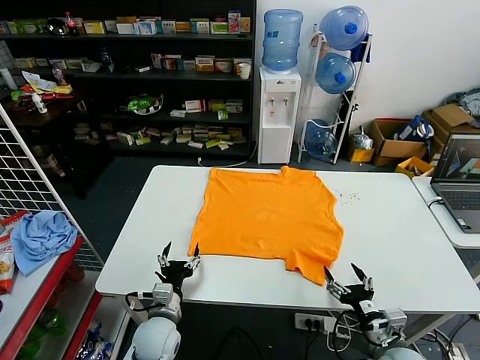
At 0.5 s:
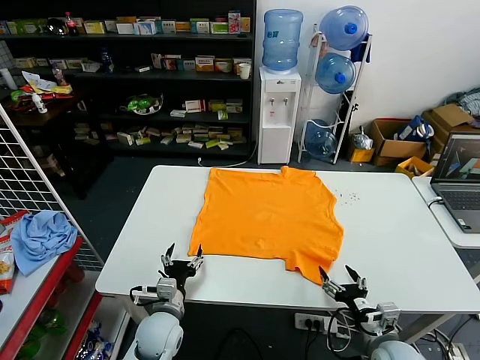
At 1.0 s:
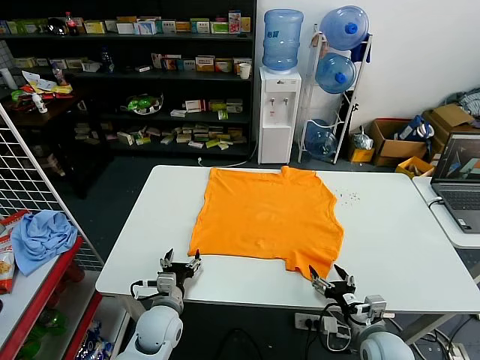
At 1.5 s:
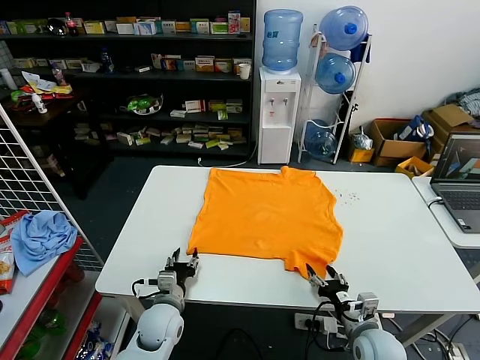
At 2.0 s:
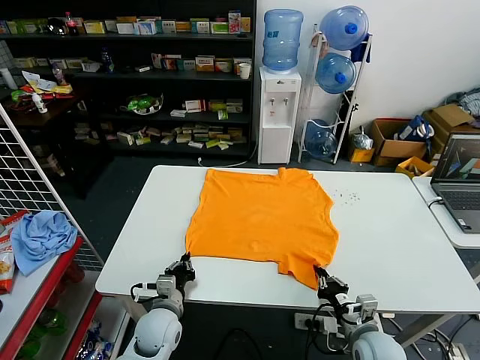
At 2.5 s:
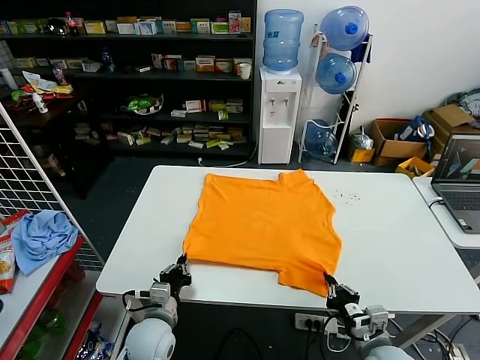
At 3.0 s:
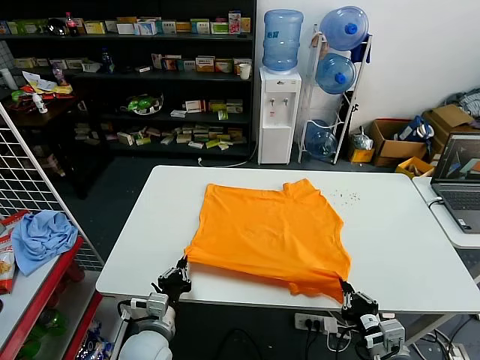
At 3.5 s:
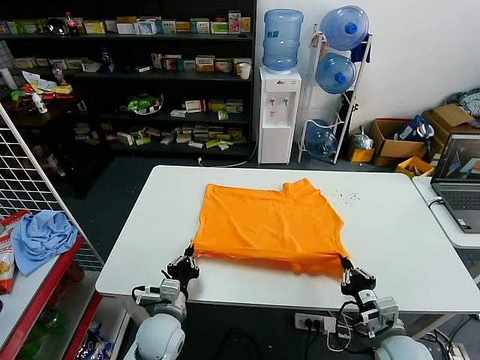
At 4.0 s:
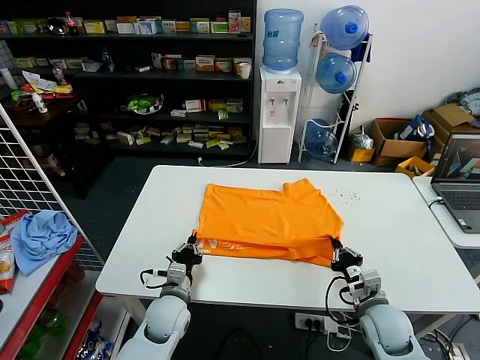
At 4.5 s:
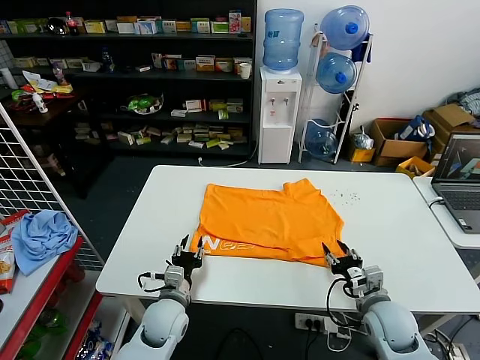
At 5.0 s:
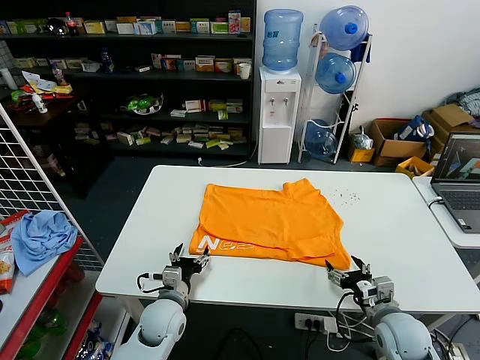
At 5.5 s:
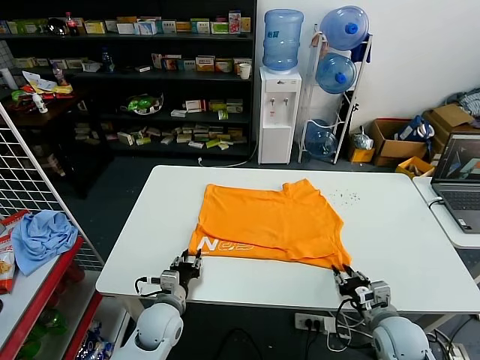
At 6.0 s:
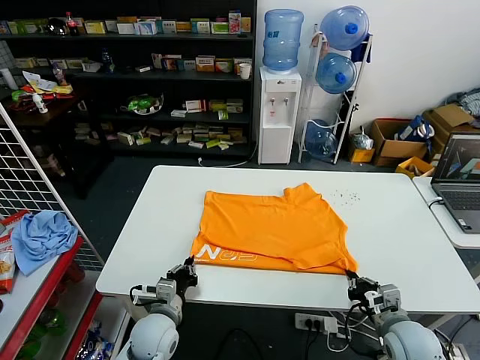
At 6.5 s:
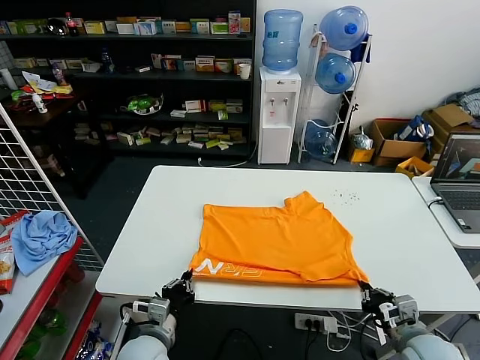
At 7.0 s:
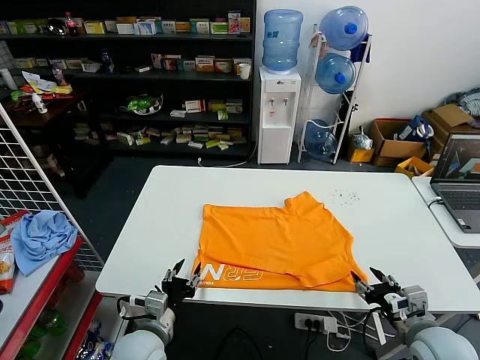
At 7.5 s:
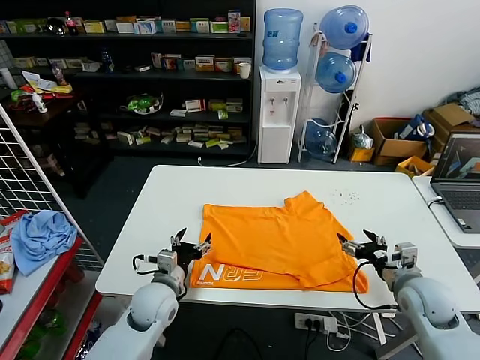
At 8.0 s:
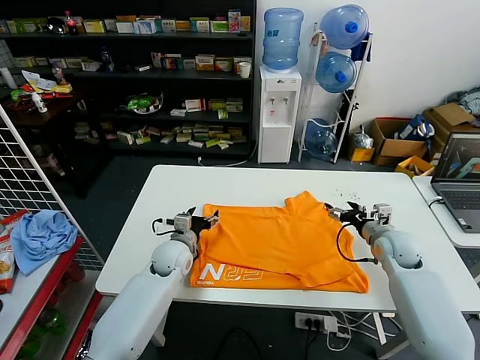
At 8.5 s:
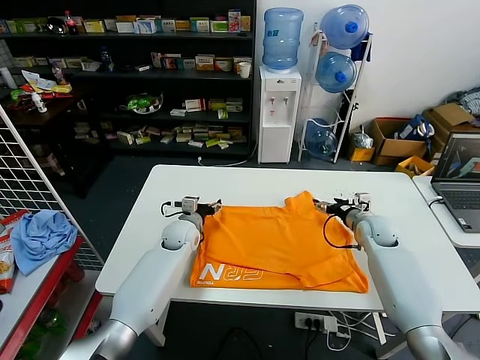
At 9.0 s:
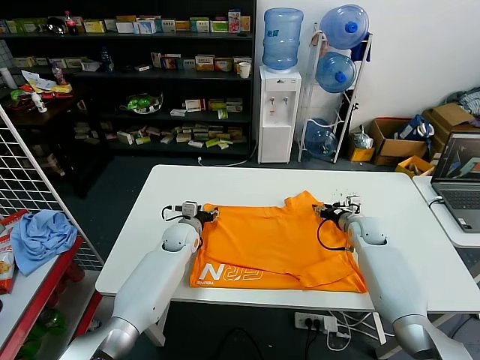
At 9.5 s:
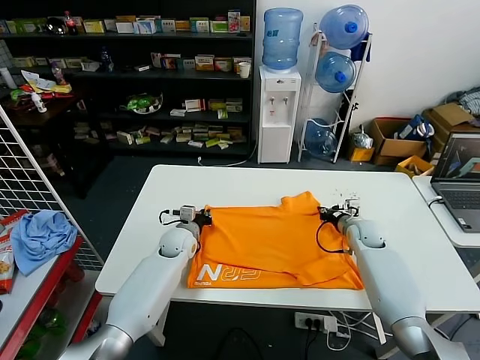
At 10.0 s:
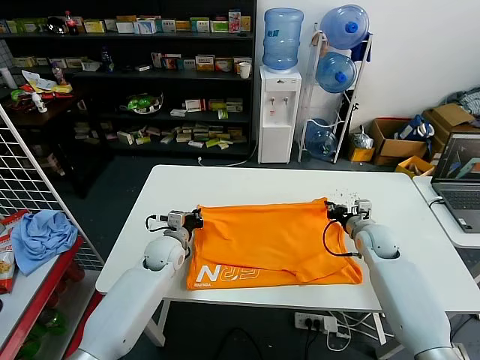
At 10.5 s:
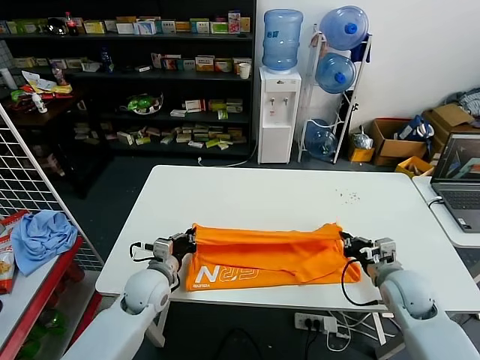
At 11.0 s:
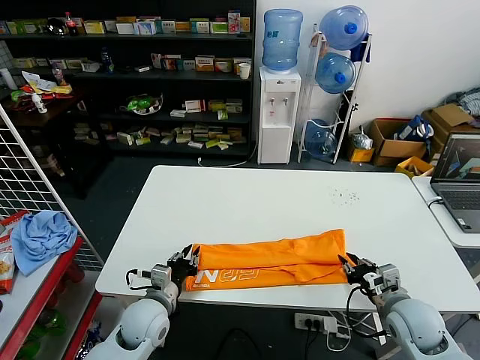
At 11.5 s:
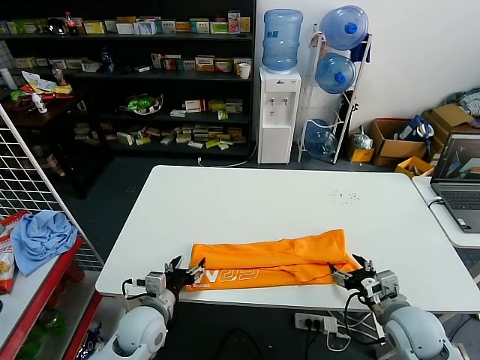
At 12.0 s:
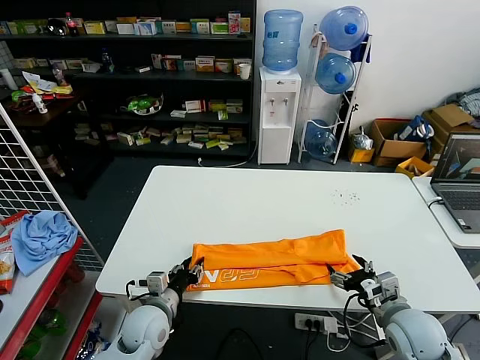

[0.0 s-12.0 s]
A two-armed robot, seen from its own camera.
Task of the whole recording: fold and organize the clothes.
Step, 0.0 to 2.0 s: use both grippers simultaneously to clamp the lower edge of the clothing fabric.
Step, 2.5 to 4.0 s: use both grippers to drag the lower edge of the fabric forward and fold it over the upper edge.
Step, 4.5 to 6.5 s: Drag the clothes downward with both gripper.
Step, 7.0 to 9.5 s: use both grippers simultaneously to clamp the upper edge of the clothing fabric.
Step, 10.0 to 11.0 s: use both grippers to drag the upper edge of the fabric backward and fold it over the lower edge.
2.0 to 4.0 s: The left gripper goes backward and returns, roughly 5 cm each way. The right gripper moves forward, some 5 cm.
4.0 to 6.0 s: The right gripper shifts about 5 cm backward, and opens, then closes once more. Meanwhile the left gripper opens, then closes once more.
6.0 to 8.0 s: The two grippers go approximately 20 cm forward. The right gripper opens. The left gripper opens up.
8.0 to 10.0 s: The right gripper closes, while the left gripper moves roughly 10 cm forward and comes back, and closes up.
10.0 to 12.0 s: The two grippers go roughly 20 cm backward. The right gripper opens up. Meanwhile the left gripper opens its fingers.

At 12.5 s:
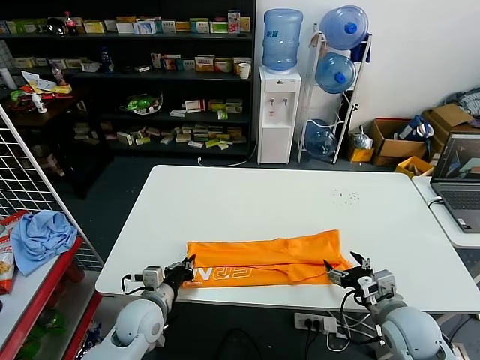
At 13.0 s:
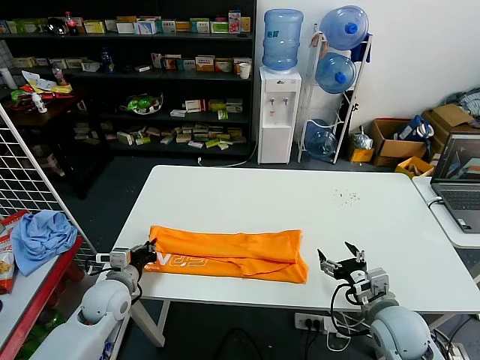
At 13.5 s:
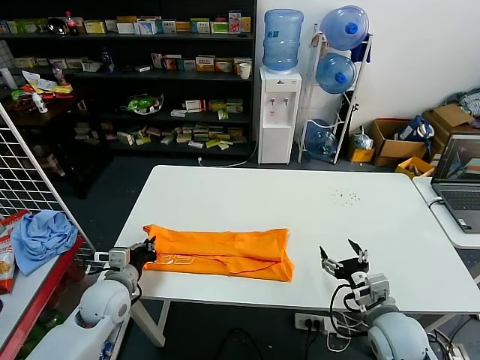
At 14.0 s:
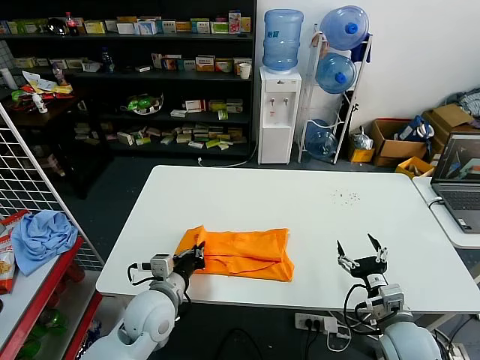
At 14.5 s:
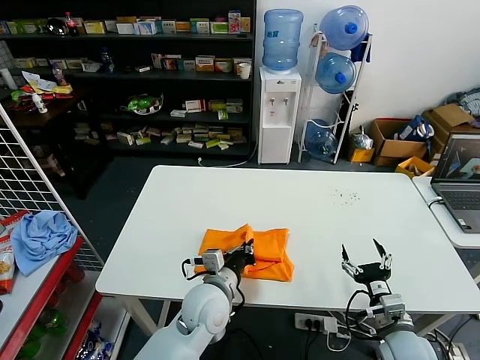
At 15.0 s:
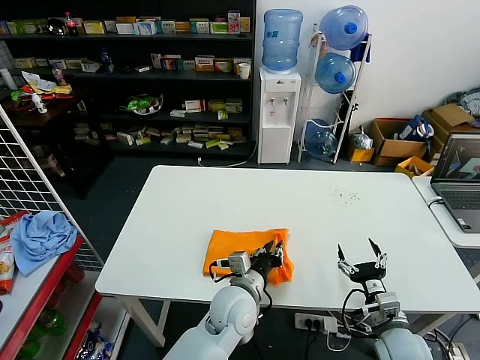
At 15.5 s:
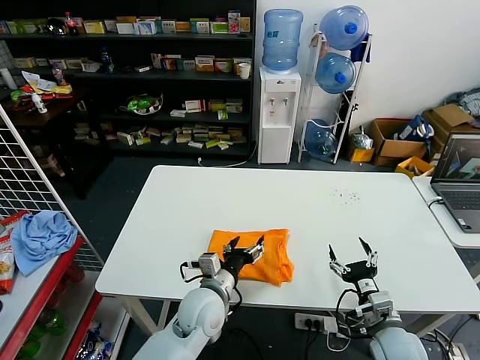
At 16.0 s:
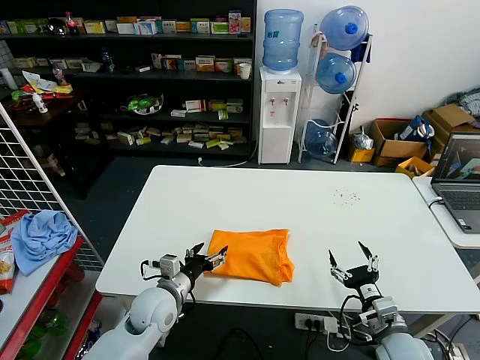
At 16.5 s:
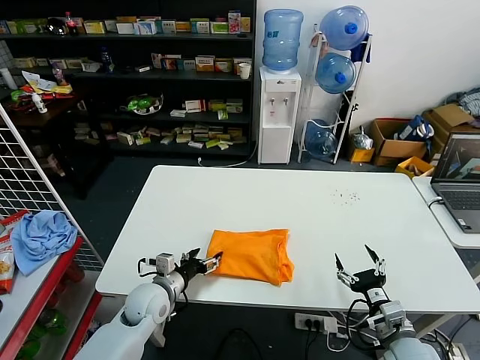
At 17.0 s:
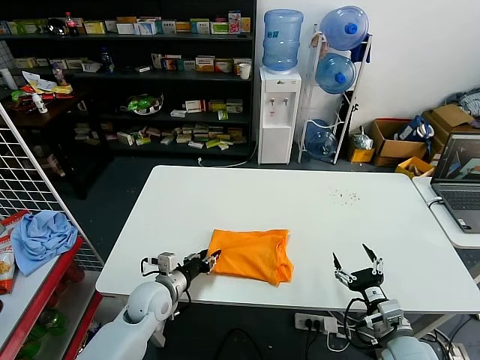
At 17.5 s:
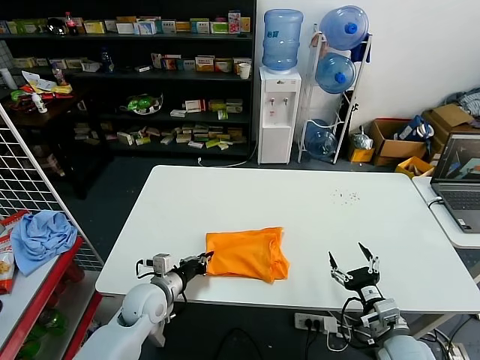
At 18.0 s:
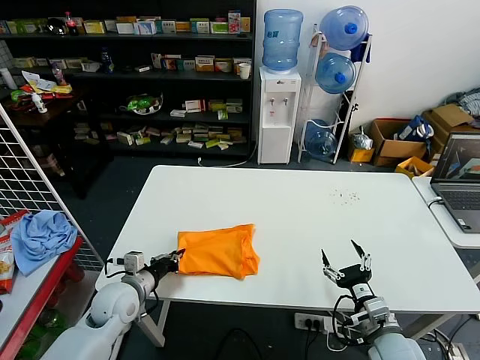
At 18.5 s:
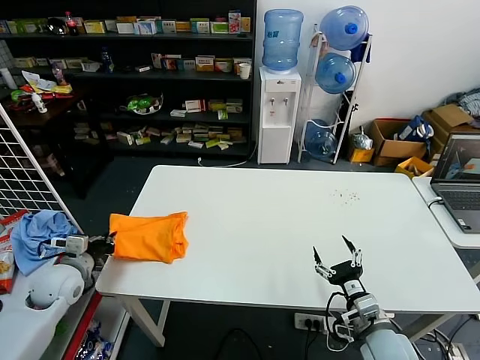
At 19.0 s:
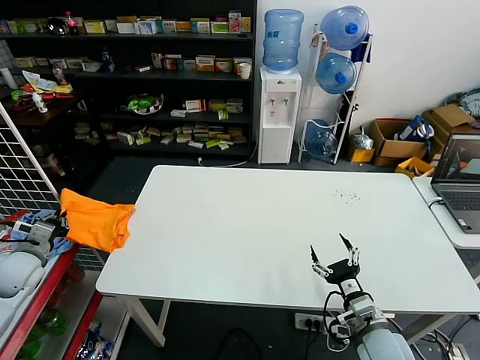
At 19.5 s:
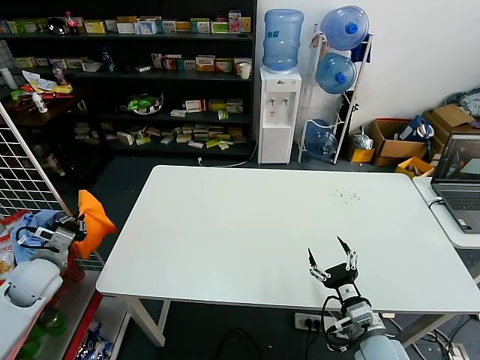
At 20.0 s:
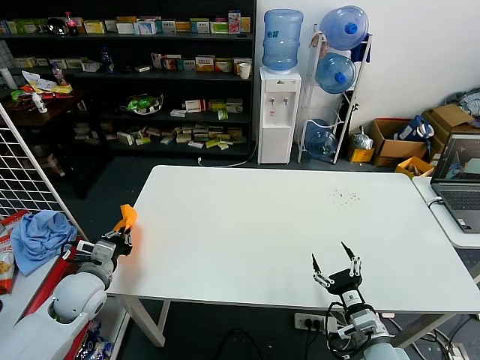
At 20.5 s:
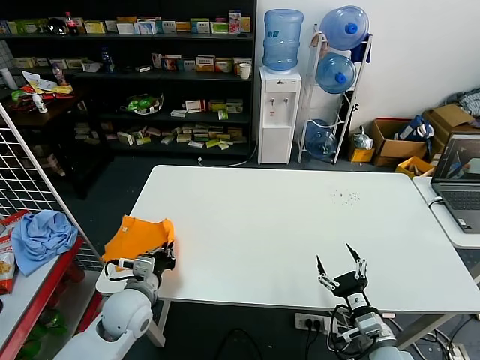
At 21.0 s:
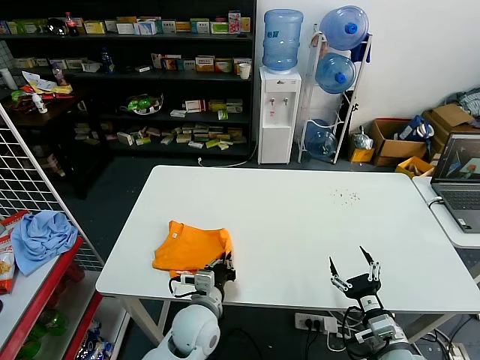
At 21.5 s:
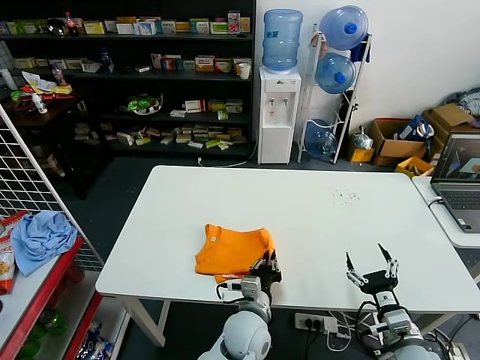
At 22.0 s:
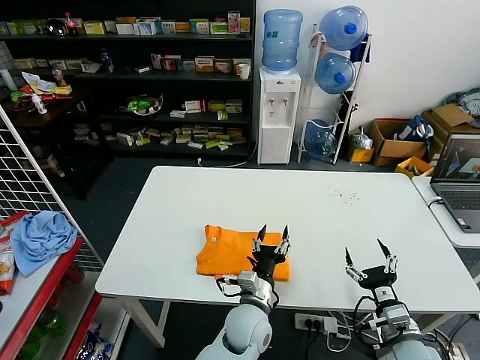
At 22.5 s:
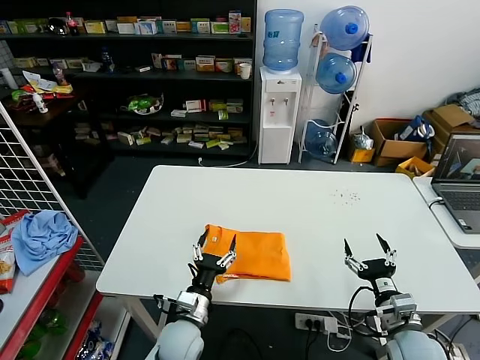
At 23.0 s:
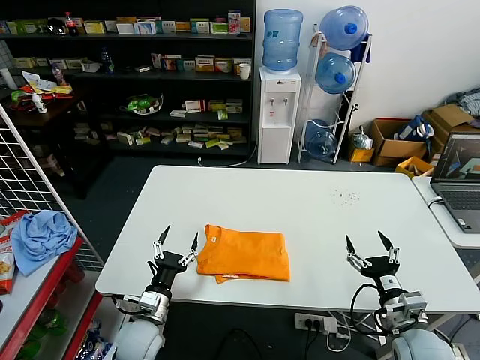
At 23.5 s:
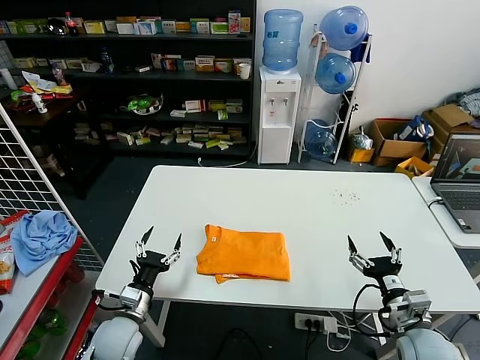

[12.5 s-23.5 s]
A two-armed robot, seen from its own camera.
Task of the whole recording: fold and organize the clothes.
Step, 13.0 to 15.0 s: use the left gripper to drag the left edge of the fabric to the left and folds it over the right edge.
Step, 15.5 to 21.5 s: Flip the folded clothes over with left gripper.
12.5 to 14.5 s: The right gripper shifts by roughly 5 cm; the left gripper moves to the right and upward, some 15 cm.
14.5 to 16.0 s: The left gripper is displaced to the left by some 10 cm, and opens.
16.0 to 18.0 s: The left gripper heads to the left, covering approximately 10 cm, and closes up.
18.0 to 20.0 s: The left gripper travels to the left and upward by roughly 10 cm.
20.0 to 21.5 s: The left gripper travels to the right by some 35 cm. Meanwhile the right gripper travels to the right by approximately 5 cm.
21.5 to 23.5 s: The left gripper shifts approximately 25 cm to the left, and opens up.

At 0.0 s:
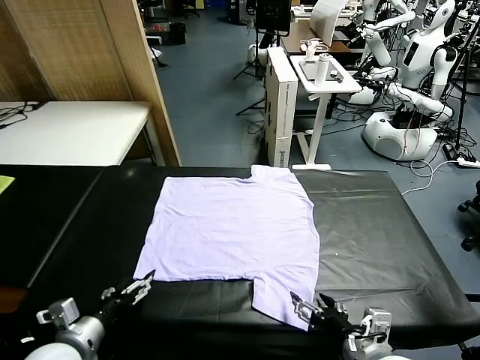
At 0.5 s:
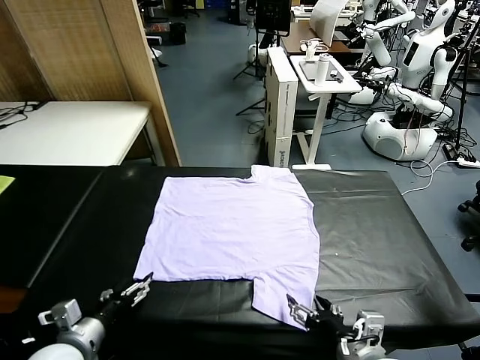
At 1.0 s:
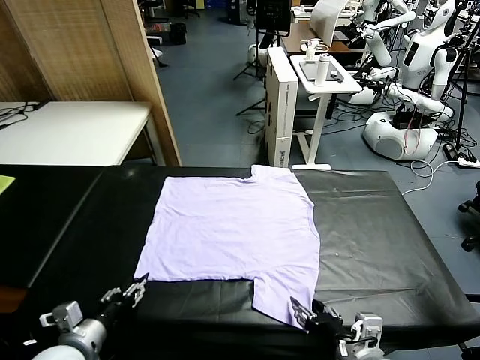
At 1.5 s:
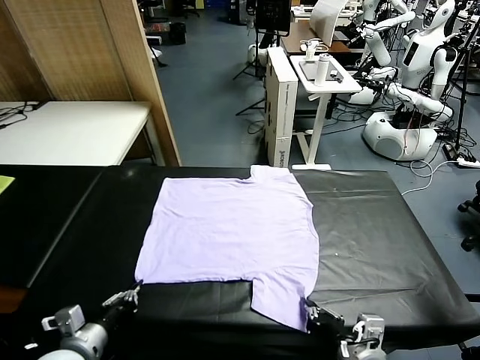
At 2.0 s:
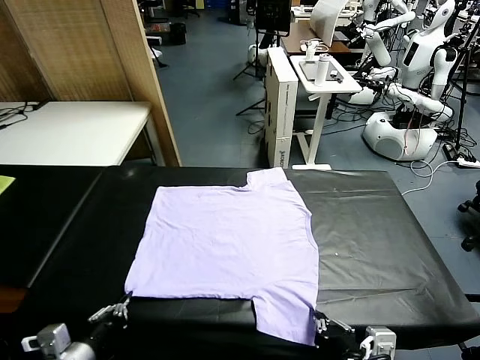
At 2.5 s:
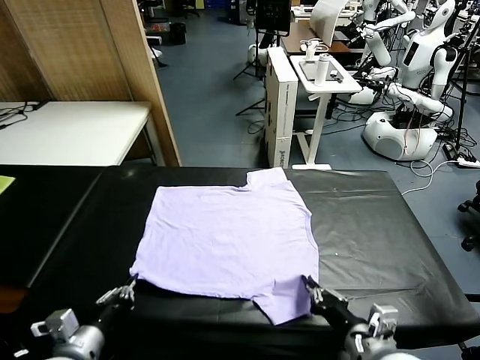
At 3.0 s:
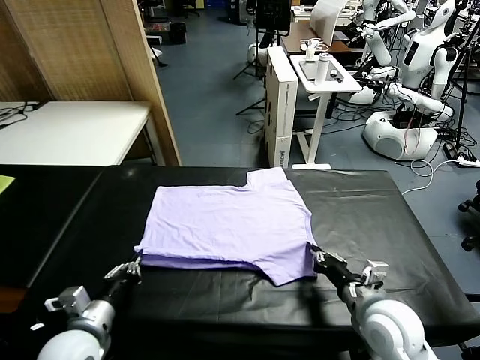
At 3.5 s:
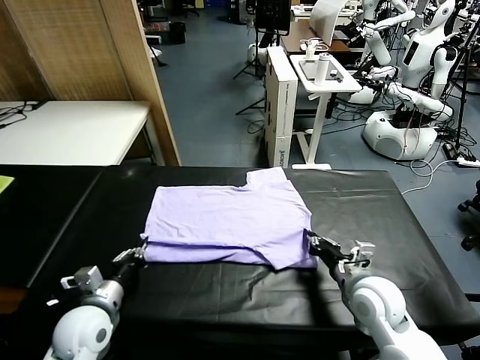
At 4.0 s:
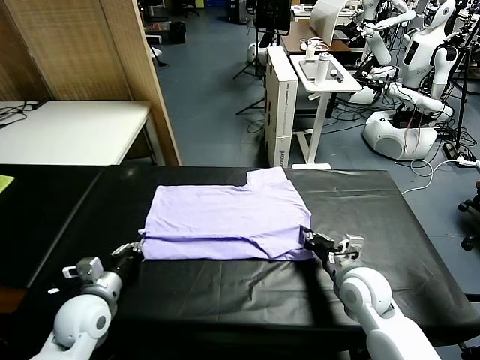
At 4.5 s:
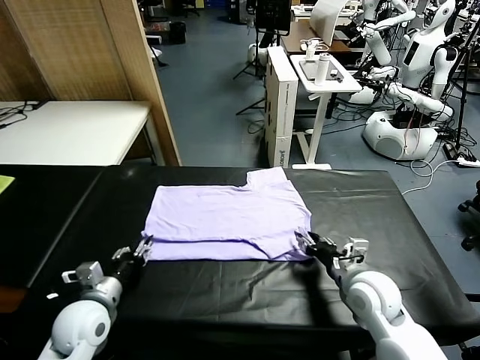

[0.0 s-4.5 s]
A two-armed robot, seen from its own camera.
Task of the whole recording: fold and organize the clothes.
Step, 0.0 to 1.5 s: use both grippers simultaneously to clamp the lower edge of the clothing fabric.
2.0 to 4.5 s: Both grippers travel together forward, roughly 10 cm. The right gripper opens up; the left gripper opens.
